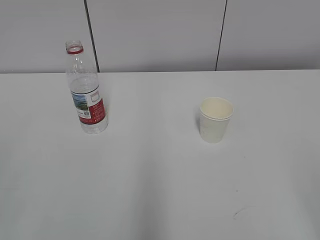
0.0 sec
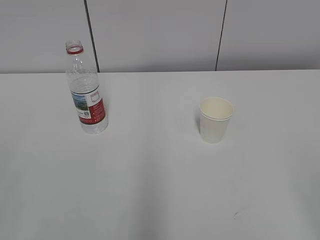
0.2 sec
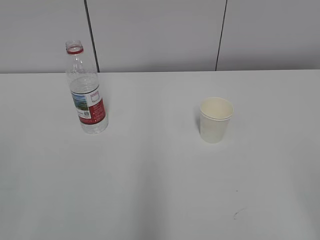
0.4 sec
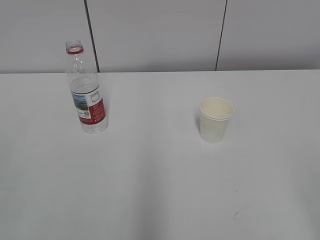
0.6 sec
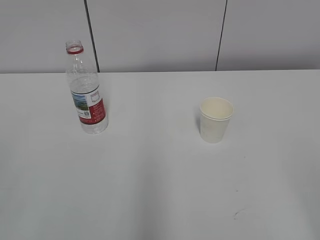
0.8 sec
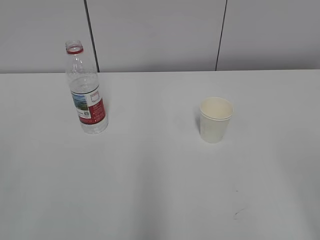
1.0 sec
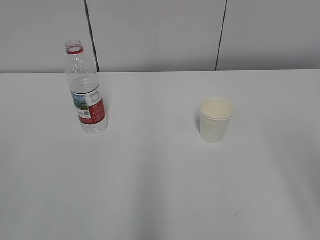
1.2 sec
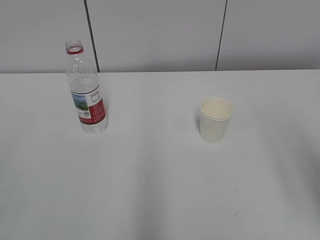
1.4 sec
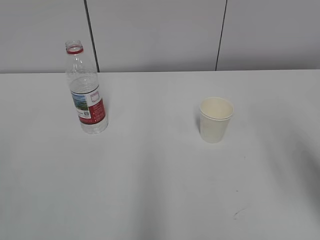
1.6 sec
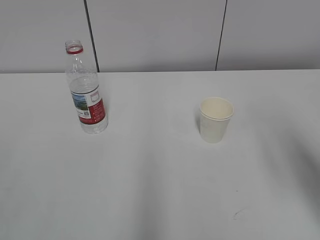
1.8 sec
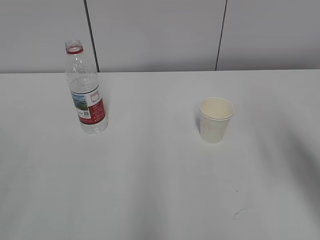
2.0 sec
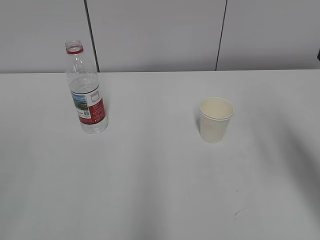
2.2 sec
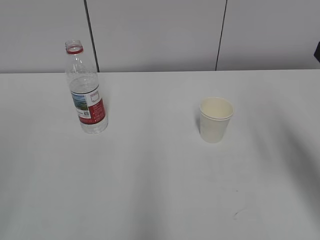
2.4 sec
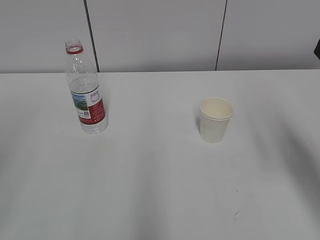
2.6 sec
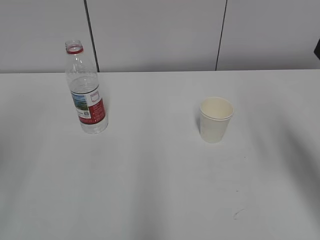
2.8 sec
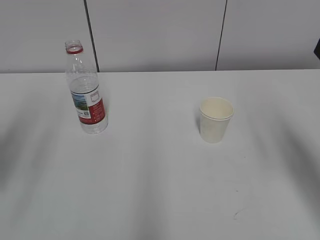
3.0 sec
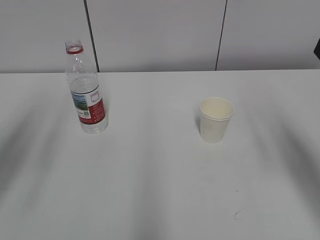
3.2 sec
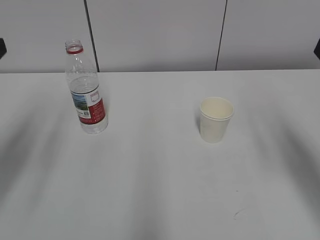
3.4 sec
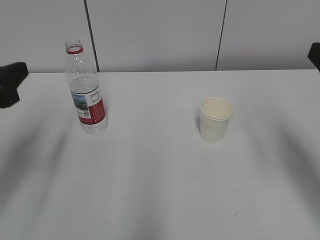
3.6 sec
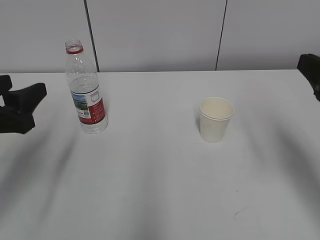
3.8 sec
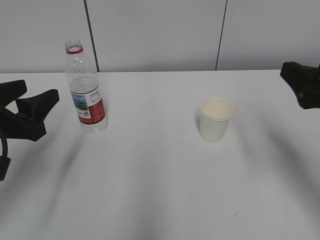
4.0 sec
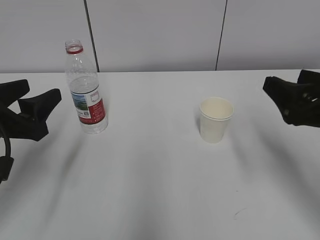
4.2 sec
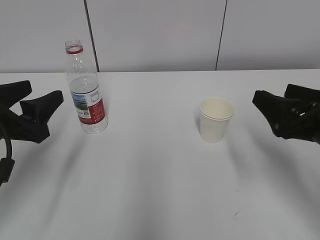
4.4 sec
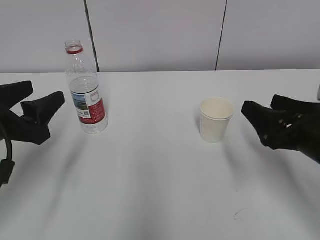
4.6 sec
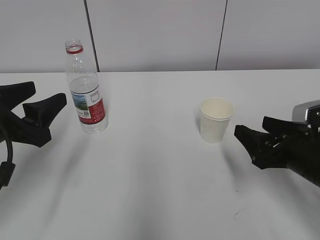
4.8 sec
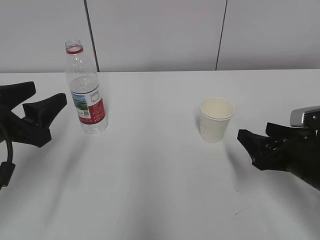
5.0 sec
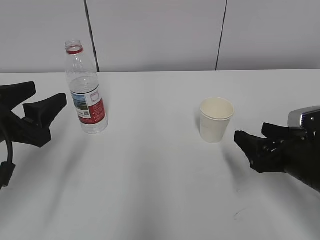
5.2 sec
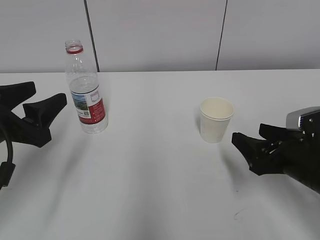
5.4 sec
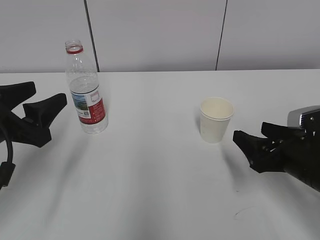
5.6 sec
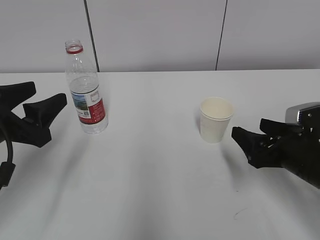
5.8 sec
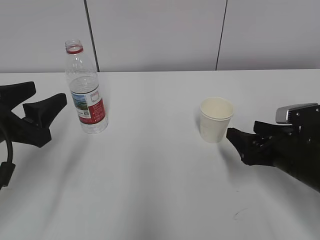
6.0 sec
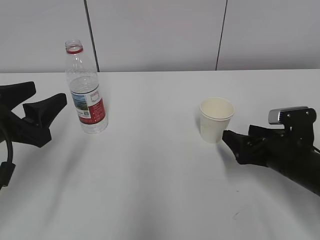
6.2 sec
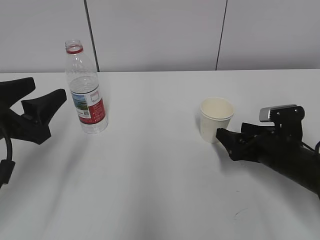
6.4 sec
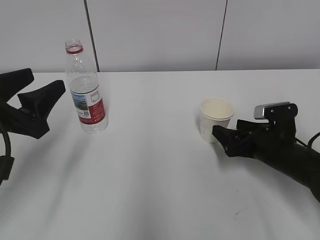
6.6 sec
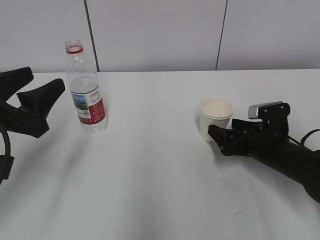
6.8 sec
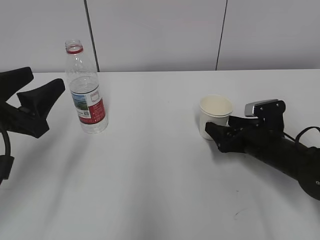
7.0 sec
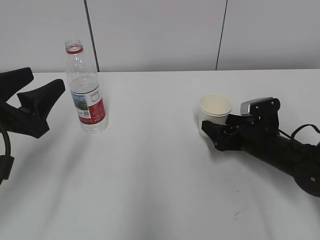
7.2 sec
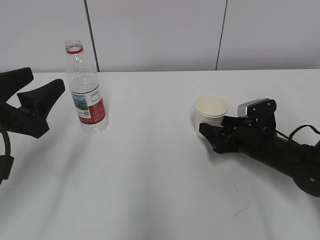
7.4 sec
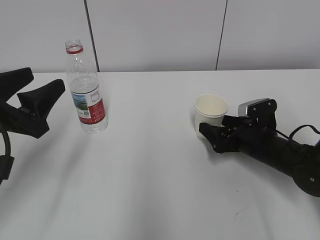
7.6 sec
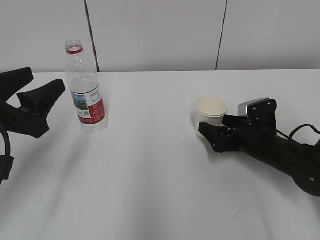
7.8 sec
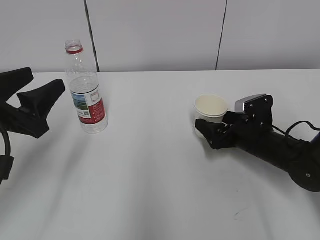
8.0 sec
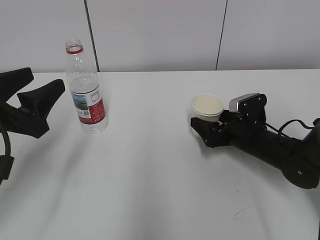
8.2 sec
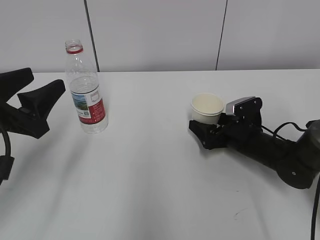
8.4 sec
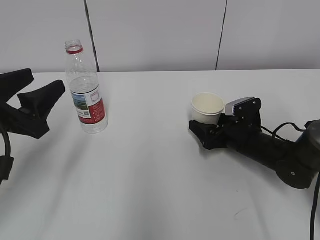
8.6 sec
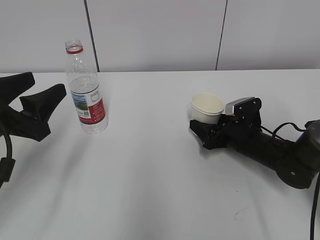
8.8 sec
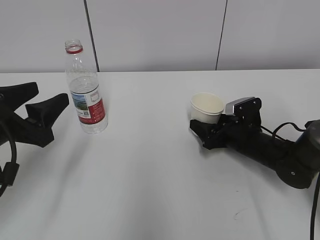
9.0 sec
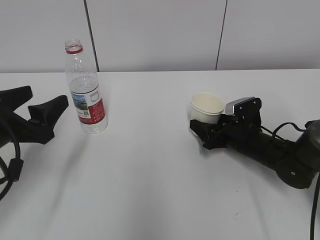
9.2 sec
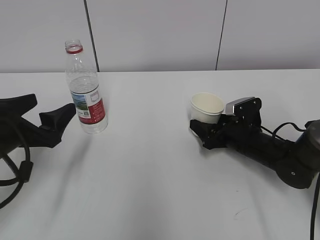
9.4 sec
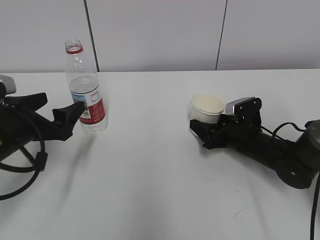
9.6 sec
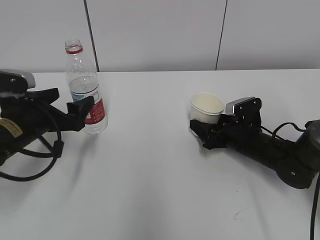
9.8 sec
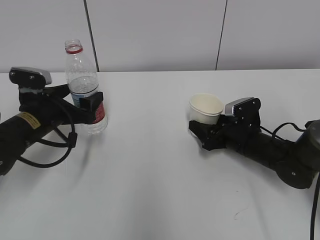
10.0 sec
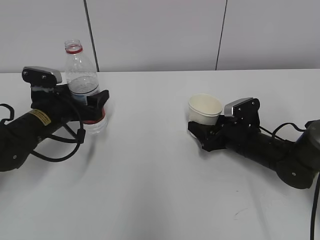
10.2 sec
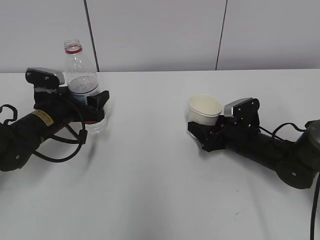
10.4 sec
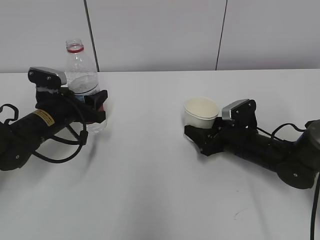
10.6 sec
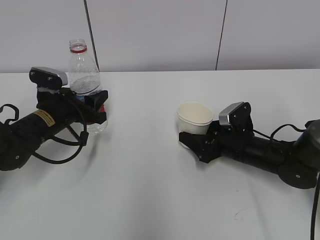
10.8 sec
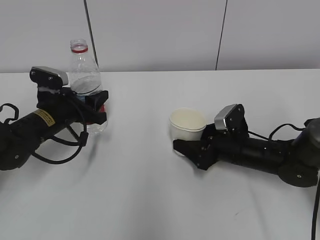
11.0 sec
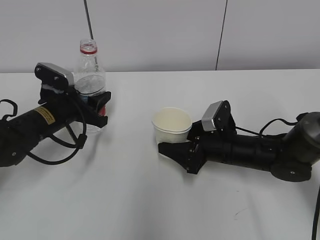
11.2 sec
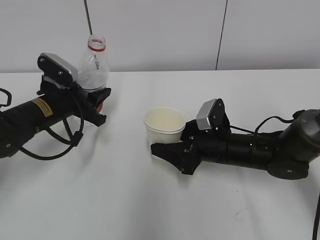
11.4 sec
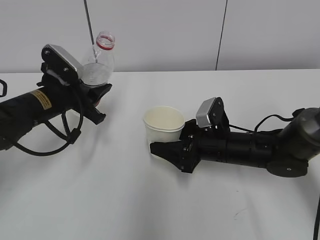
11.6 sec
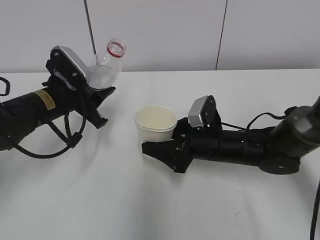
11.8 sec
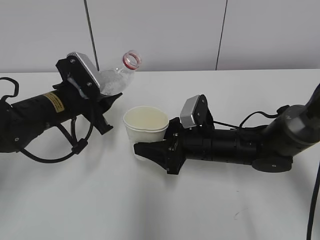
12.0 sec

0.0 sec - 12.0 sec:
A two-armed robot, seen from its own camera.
Step, 0.0 sec - 8.2 sec: Grab the paper cup with the right hand.
Step, 8.4 sec - 9.0 sec: Grab the water bottle with the left hand.
Step, 9.2 sec - 11.8 sec: Lift the paper cup with the right hand.
1.6 sec - 3.0 sec: The left gripper travels forward by roughly 20 cm.
3.0 sec - 4.4 sec: The right gripper shifts some 10 cm downward. Meanwhile the left gripper goes approximately 15 cm downward.
4.4 sec - 6.0 sec: The right gripper moves downward, about 10 cm.
6.0 sec - 7.6 sec: The right gripper moves forward, some 10 cm.
7.6 sec - 9.0 sec: The right gripper closes its fingers.
9.0 sec - 10.4 sec: The left gripper is displaced forward and downward by about 15 cm.
10.4 sec - 12.0 sec: The right gripper is displaced to the left by roughly 10 cm, while the left gripper shifts by roughly 5 cm, and closes.

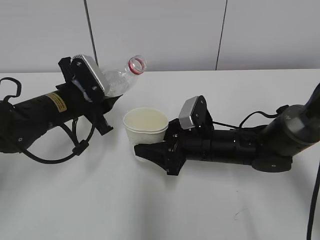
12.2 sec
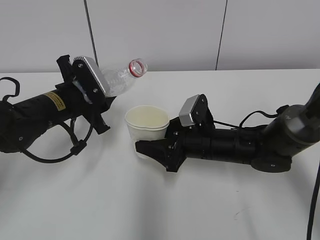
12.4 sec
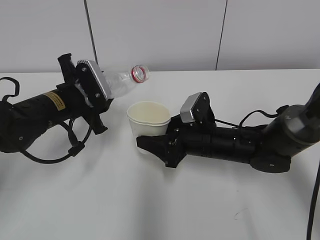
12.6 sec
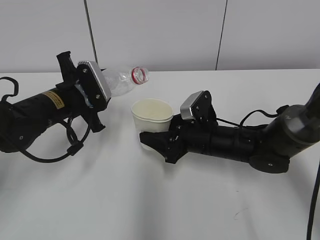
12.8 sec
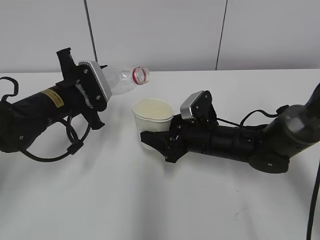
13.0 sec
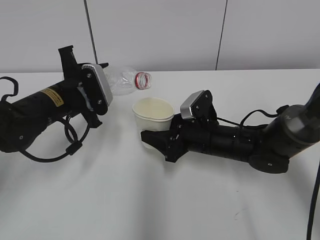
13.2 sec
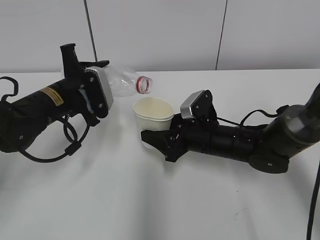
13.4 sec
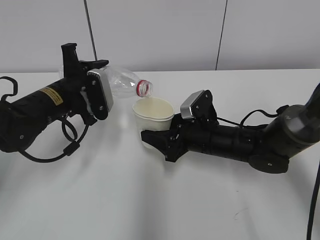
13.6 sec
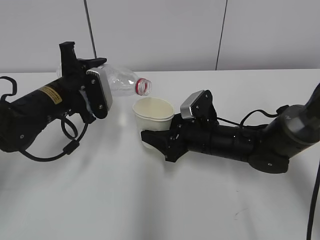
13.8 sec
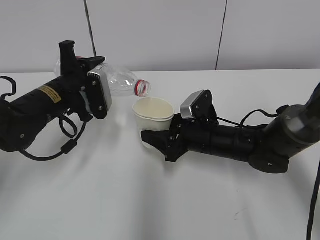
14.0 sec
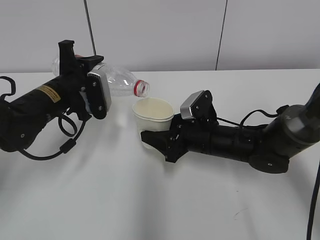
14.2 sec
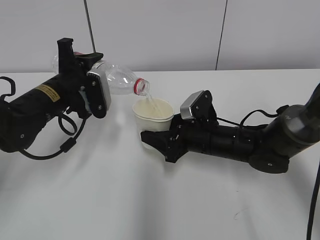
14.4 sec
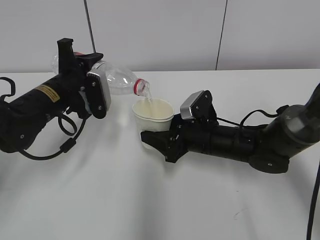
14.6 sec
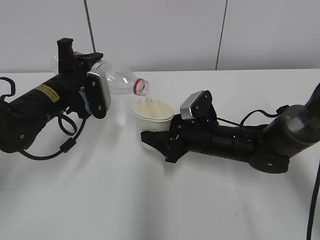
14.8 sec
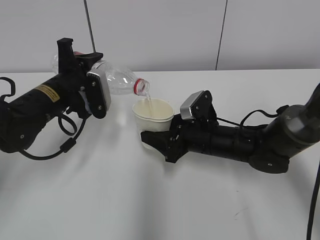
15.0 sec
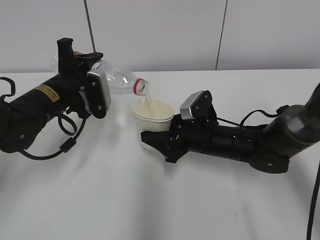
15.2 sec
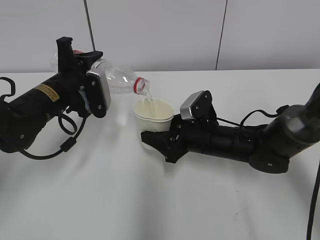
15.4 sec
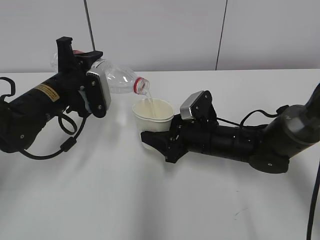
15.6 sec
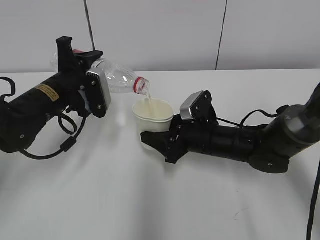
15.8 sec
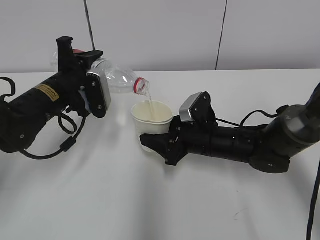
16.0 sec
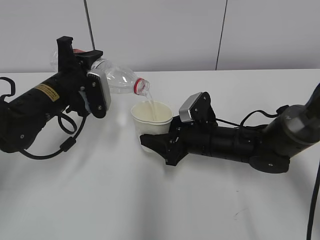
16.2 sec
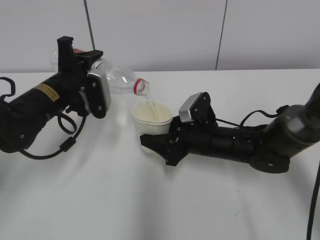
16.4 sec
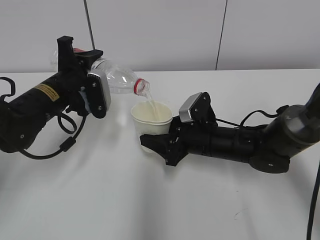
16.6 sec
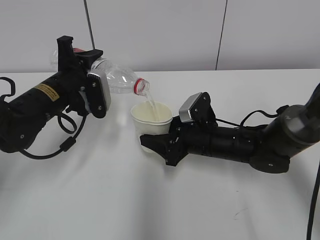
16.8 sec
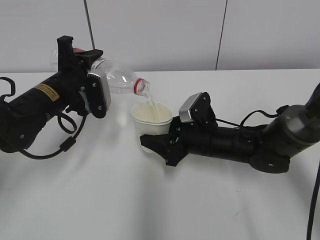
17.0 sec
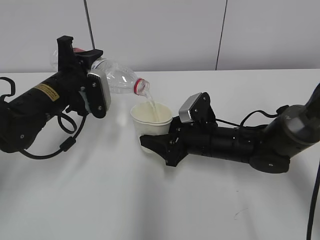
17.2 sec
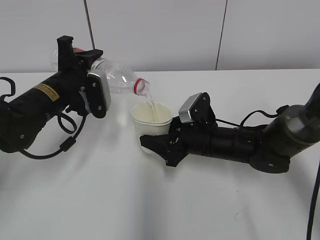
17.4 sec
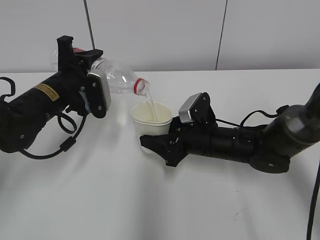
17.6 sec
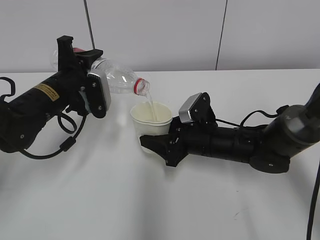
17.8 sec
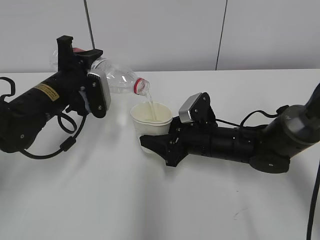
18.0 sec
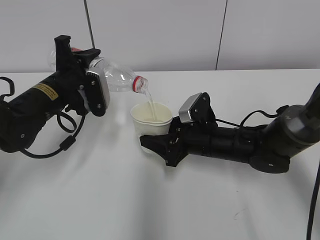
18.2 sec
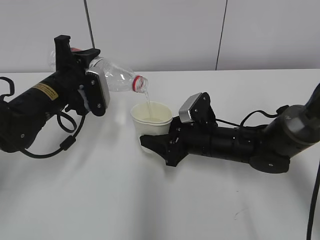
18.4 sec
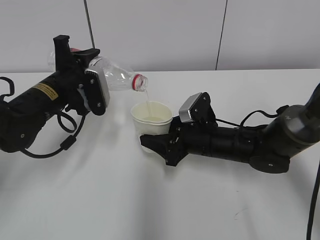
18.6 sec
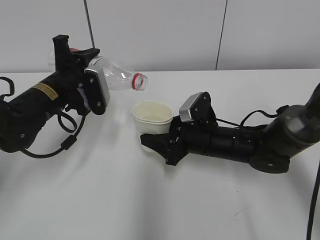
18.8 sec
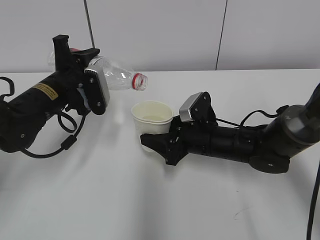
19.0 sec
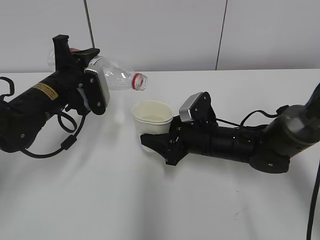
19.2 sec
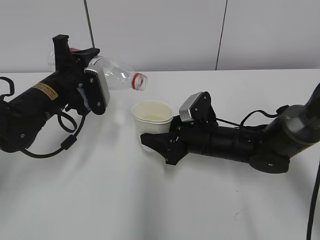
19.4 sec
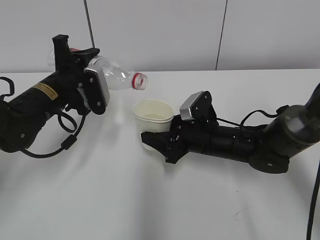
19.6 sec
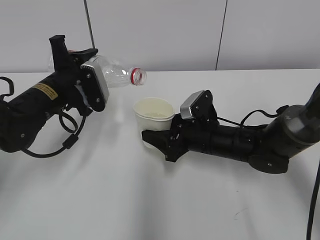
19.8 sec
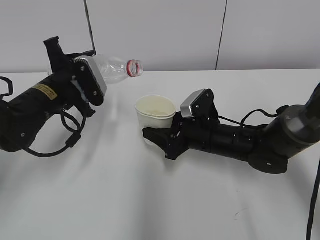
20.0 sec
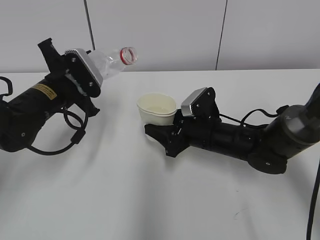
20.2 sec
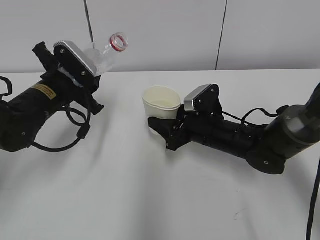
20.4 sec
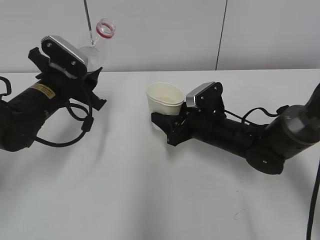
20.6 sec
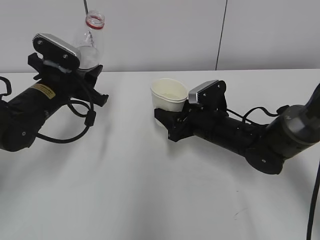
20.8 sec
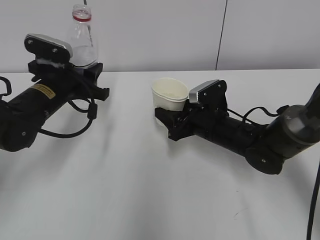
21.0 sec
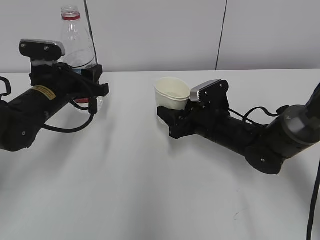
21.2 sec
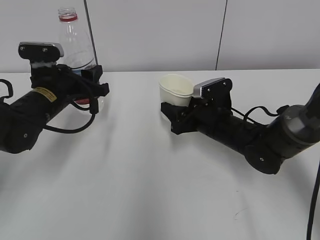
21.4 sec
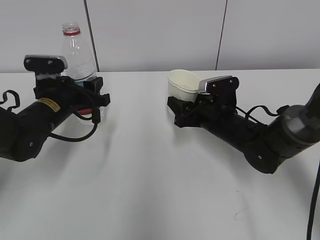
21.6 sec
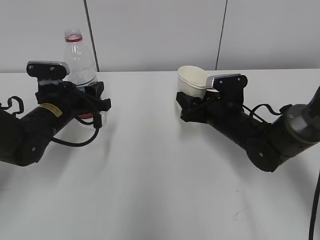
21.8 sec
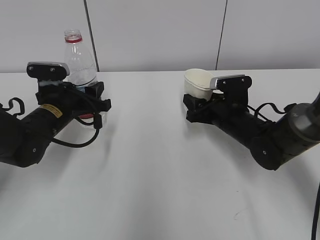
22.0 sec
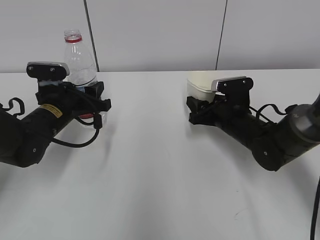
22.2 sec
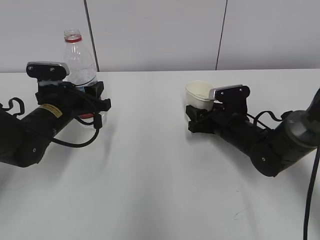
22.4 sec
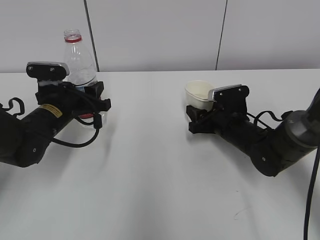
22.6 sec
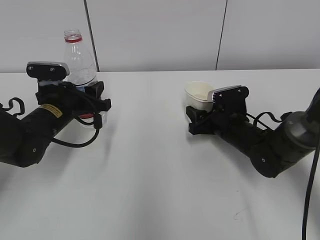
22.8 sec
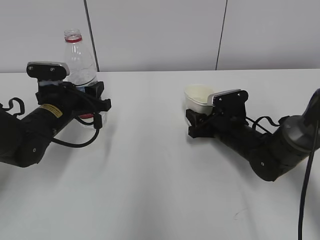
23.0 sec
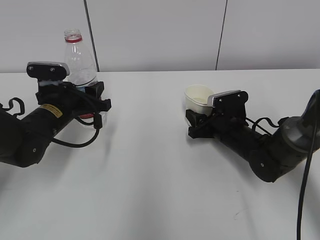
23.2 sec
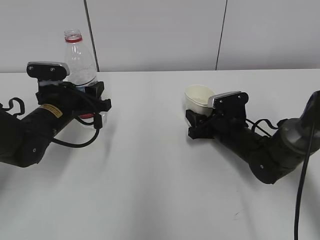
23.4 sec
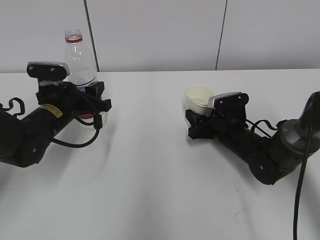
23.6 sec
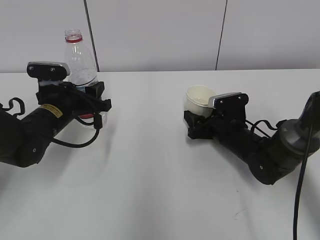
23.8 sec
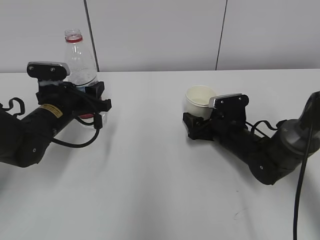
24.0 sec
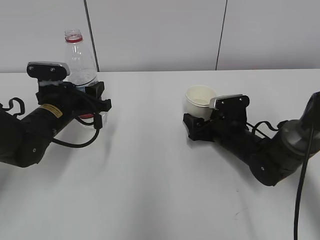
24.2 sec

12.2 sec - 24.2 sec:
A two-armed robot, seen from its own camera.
Step, 12.2 sec - 15.6 sec: Fill water with the right hand.
Step, 12.2 sec - 15.6 sec: Pour water with the left hand.
Step, 15.8 sec - 17.6 sec: Collect water with the left hand.
Step, 17.8 sec - 19.8 sec: Place the paper cup with the right hand.
Step, 20.0 sec - 21.6 sec: Place the water bottle with the left hand.
13.8 sec - 15.2 sec: The grippers stay close to where they were, moving slightly.
15.2 sec - 18.2 sec: Neither gripper changes place.
18.2 sec - 19.8 sec: The grippers move only a little.
21.2 sec - 22.6 sec: The right gripper changes place by approximately 5 cm.
22.6 sec - 24.2 sec: The right gripper opens its fingers.
